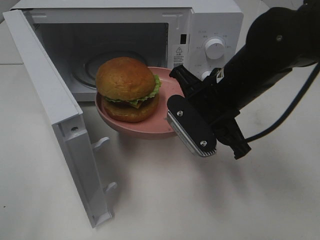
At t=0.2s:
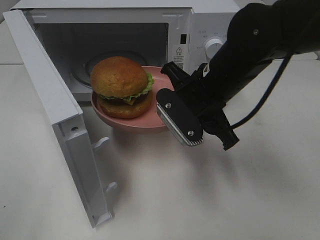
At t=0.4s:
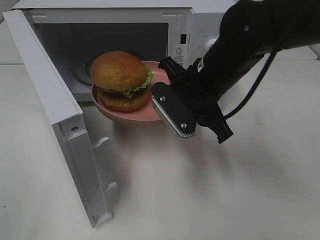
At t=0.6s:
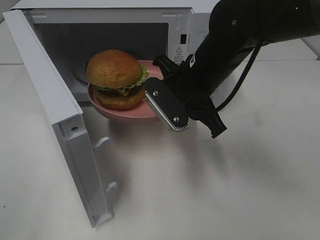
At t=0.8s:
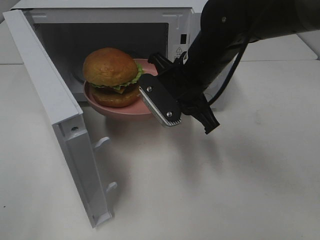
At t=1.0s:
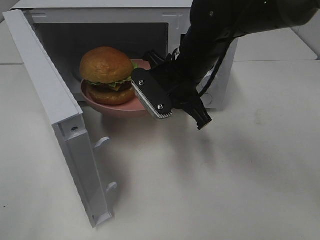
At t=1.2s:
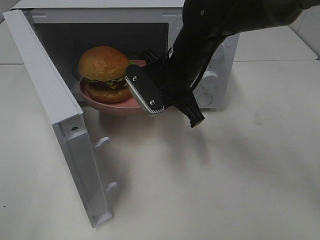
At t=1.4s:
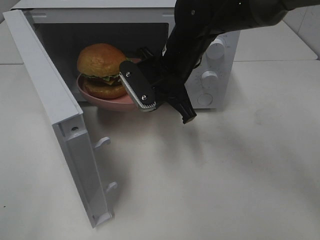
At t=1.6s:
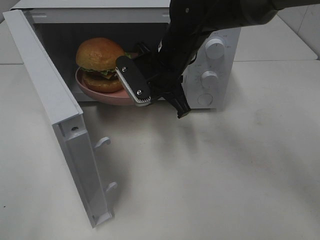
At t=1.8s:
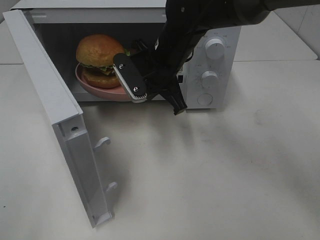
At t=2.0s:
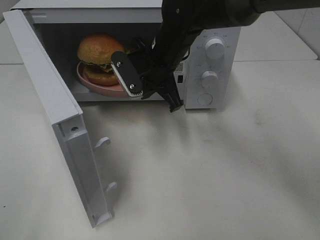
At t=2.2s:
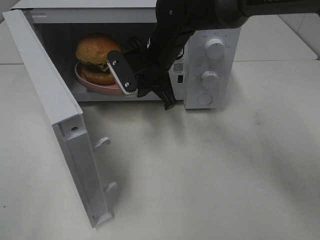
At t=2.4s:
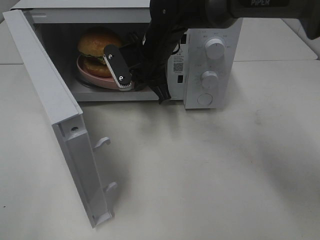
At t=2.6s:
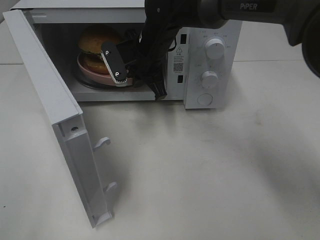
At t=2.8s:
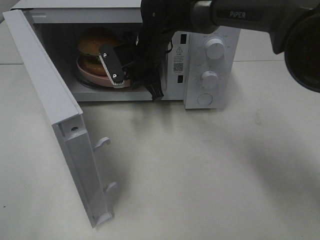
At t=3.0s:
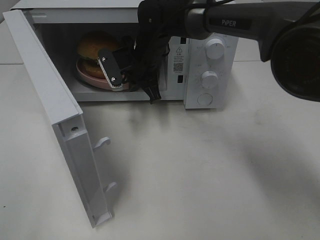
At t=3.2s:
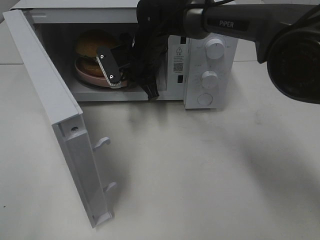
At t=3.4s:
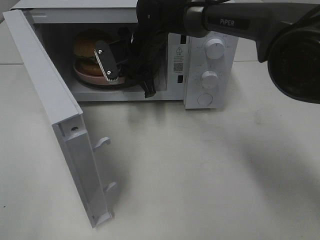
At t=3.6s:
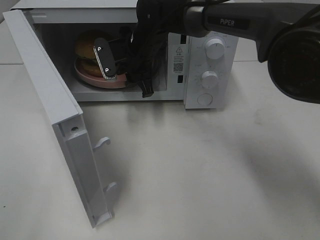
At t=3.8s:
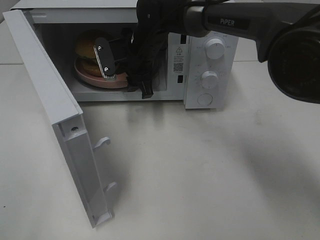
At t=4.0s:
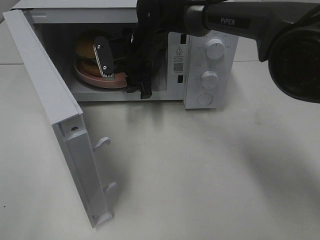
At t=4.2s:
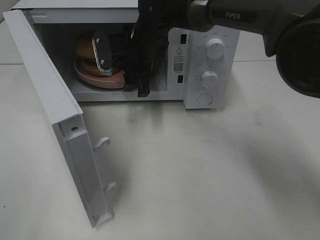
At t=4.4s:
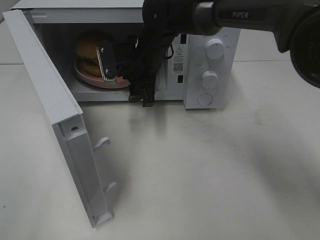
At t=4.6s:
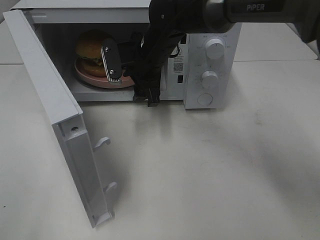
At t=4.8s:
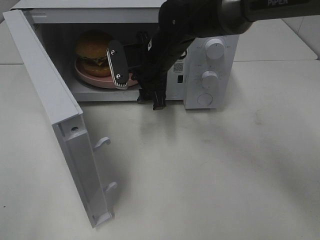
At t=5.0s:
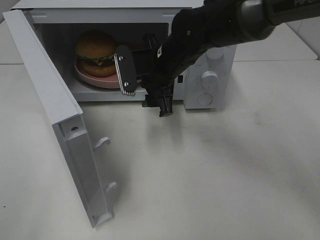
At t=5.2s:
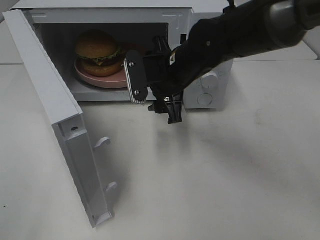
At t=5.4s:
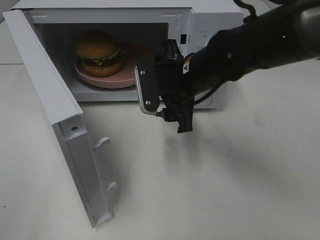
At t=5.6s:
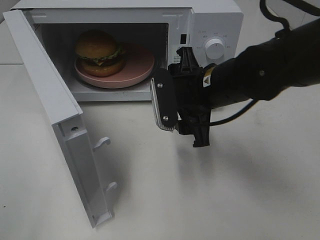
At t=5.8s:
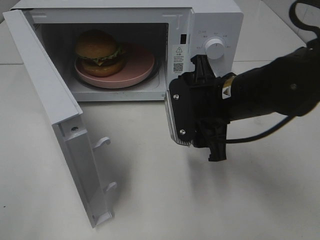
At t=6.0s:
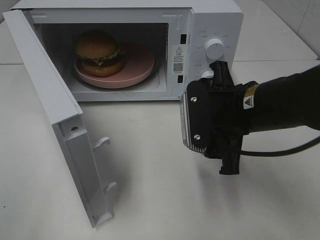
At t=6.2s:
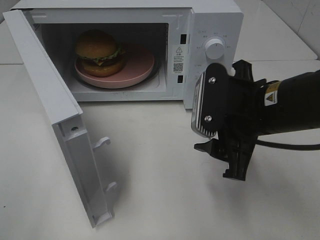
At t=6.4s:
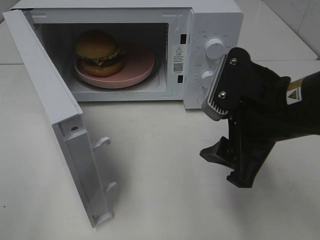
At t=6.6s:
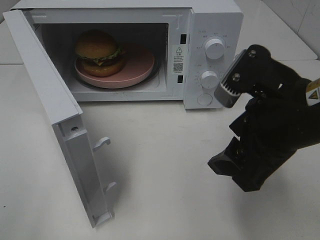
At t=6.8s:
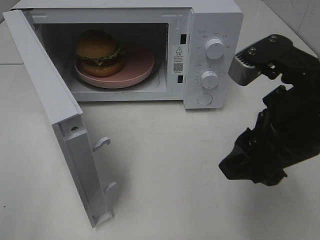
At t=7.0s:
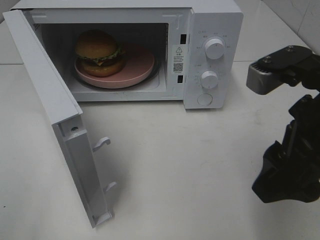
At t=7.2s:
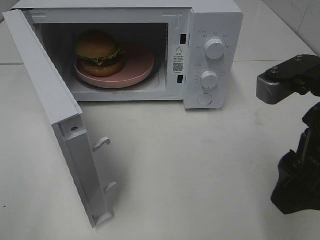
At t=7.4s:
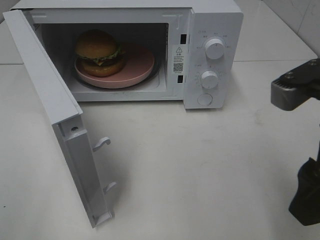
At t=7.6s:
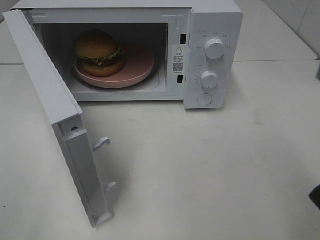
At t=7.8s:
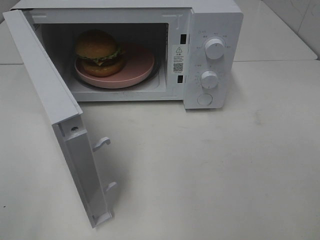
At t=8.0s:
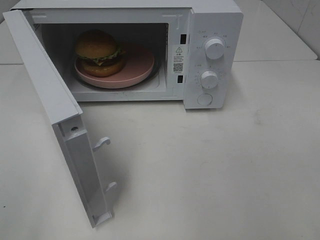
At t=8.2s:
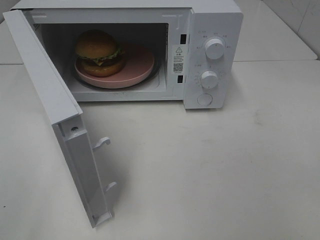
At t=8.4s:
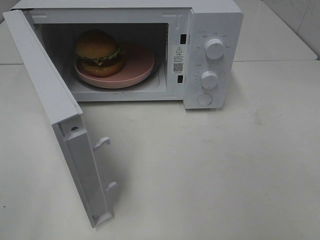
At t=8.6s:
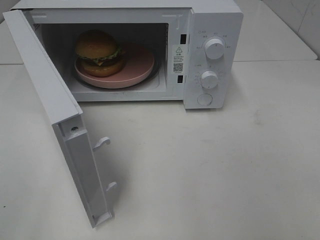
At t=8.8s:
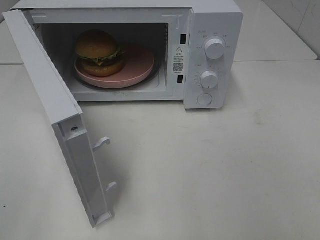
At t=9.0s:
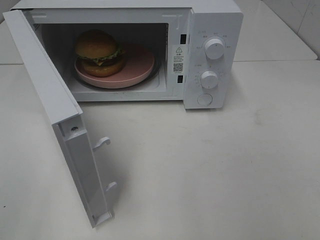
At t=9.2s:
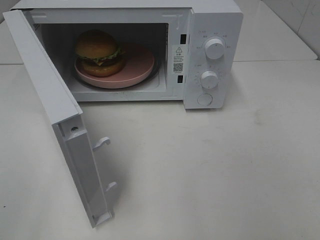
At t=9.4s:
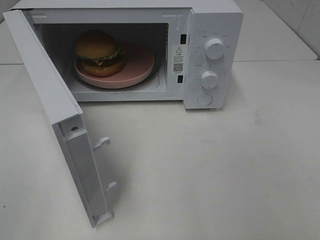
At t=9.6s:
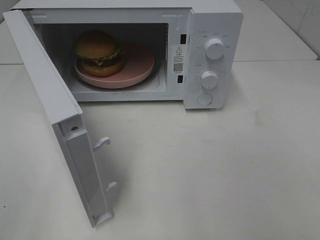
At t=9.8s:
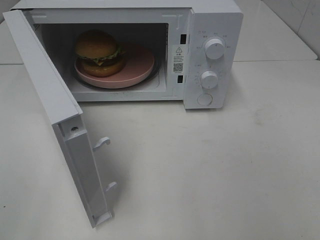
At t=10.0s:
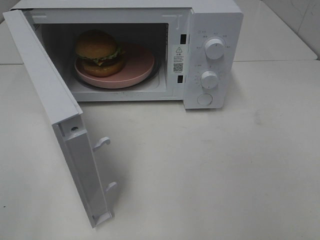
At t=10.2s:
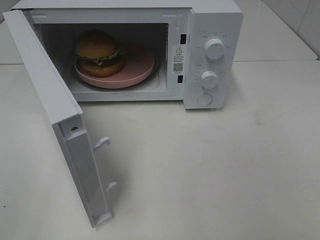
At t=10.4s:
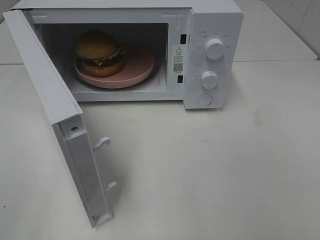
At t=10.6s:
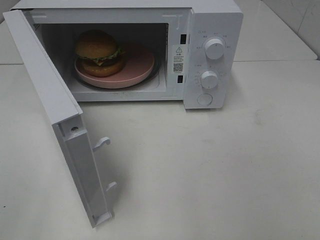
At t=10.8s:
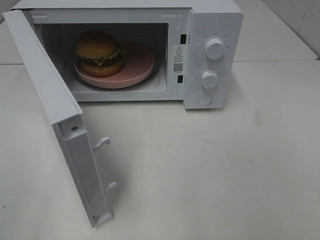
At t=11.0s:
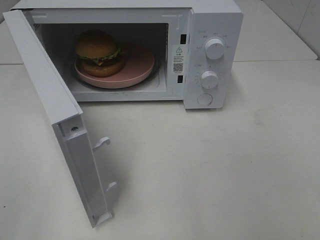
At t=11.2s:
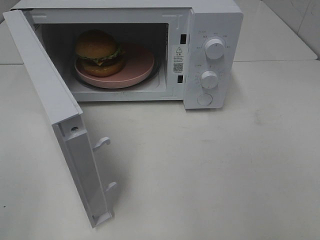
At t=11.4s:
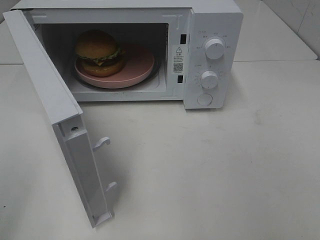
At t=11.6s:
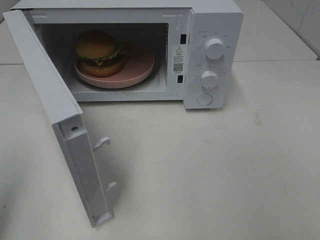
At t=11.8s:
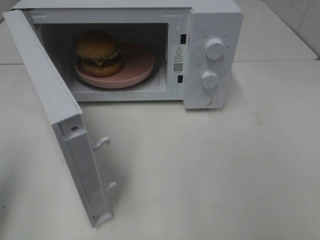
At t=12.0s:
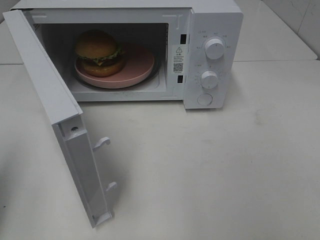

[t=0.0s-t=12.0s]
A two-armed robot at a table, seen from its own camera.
Task of the whole recording: Heat the burger.
Step, t=0.0s to t=3.6s: Right hand: place the plate in the microwave.
t=0.0s to t=1.6s: The right gripper is displaced forward and to the left by about 10 cm.
t=1.6s to t=3.0s: The right gripper heads forward, covering roughly 5 cm.
t=3.0s to t=4.4s: The right gripper opens its fingers.
t=4.4s to t=6.0s: The right gripper heads backward and to the right, covering approximately 25 cm.
t=6.0s to t=7.6s: The right gripper goes about 20 cm backward, upward and to the right.
t=7.6s to t=9.0s: The right gripper travels backward and to the right by about 15 cm.
t=9.0s to t=10.4s: Both grippers stay about where they are.
t=10.4s to t=12.0s: The left gripper goes some 15 cm forward, and closes its fingers.

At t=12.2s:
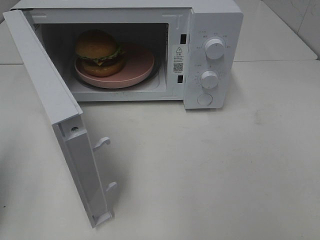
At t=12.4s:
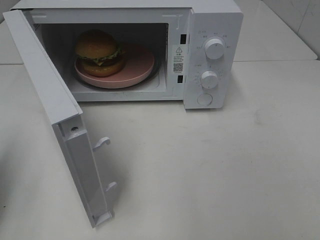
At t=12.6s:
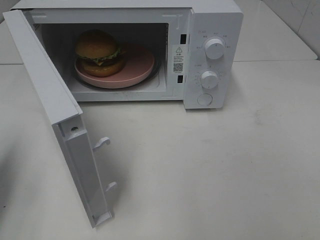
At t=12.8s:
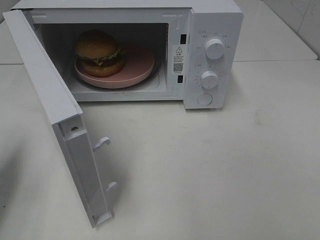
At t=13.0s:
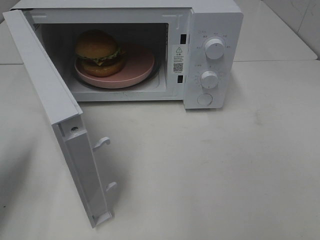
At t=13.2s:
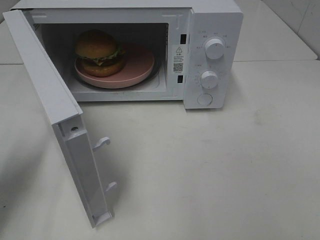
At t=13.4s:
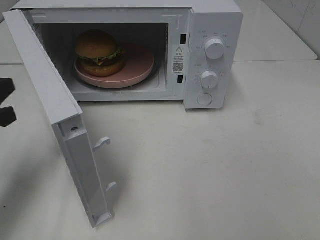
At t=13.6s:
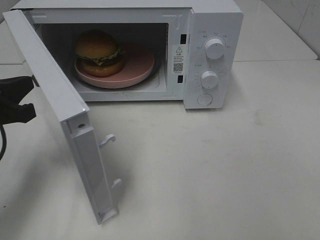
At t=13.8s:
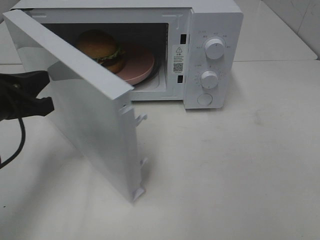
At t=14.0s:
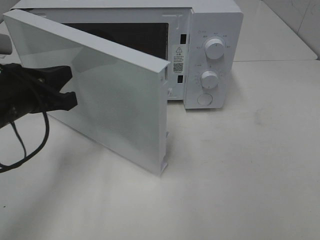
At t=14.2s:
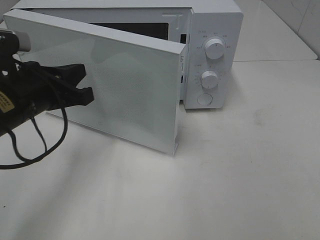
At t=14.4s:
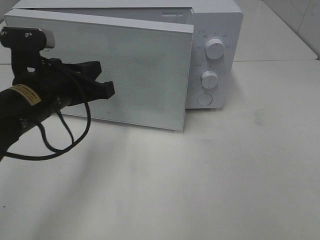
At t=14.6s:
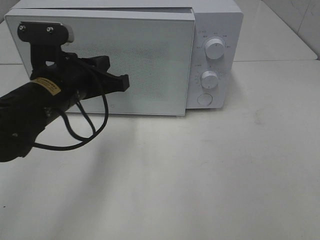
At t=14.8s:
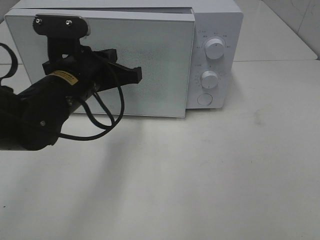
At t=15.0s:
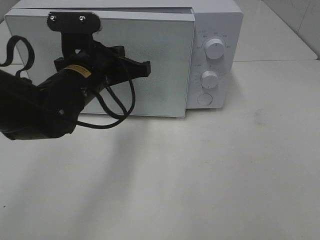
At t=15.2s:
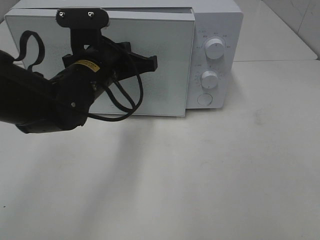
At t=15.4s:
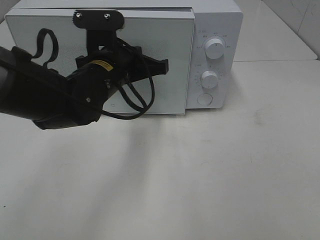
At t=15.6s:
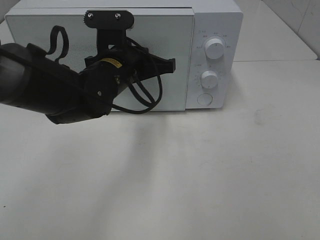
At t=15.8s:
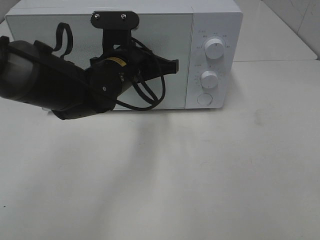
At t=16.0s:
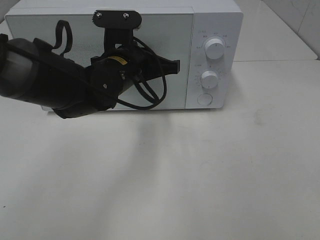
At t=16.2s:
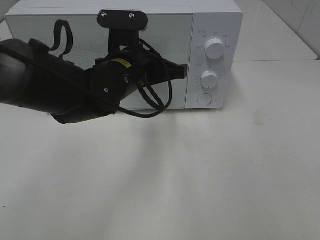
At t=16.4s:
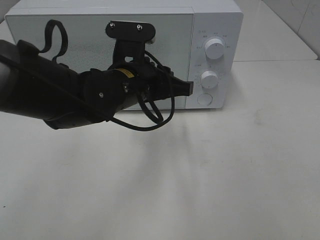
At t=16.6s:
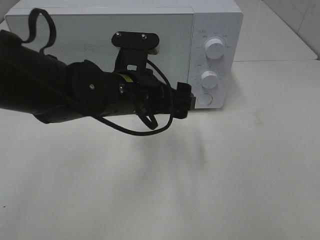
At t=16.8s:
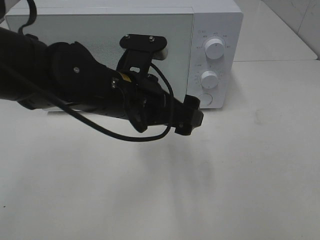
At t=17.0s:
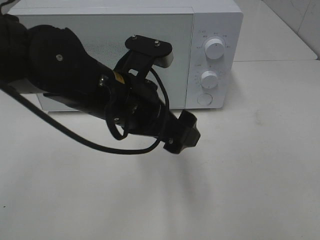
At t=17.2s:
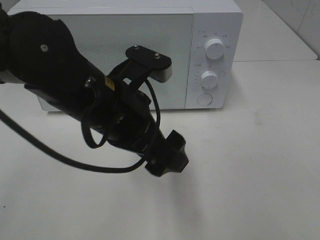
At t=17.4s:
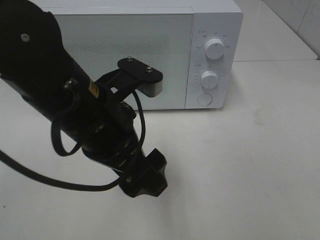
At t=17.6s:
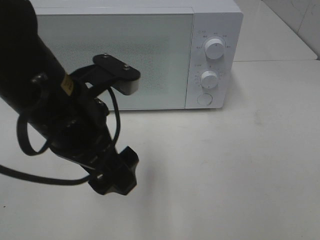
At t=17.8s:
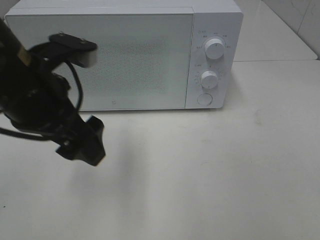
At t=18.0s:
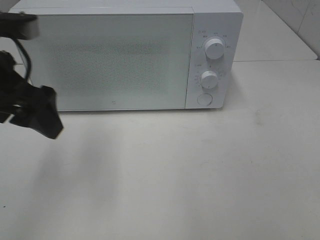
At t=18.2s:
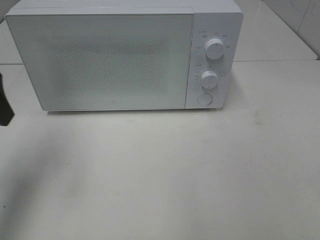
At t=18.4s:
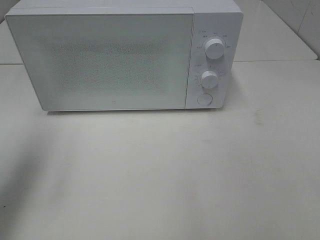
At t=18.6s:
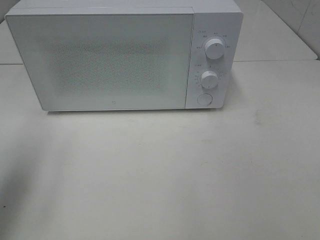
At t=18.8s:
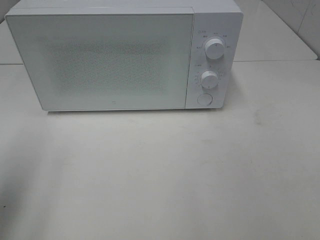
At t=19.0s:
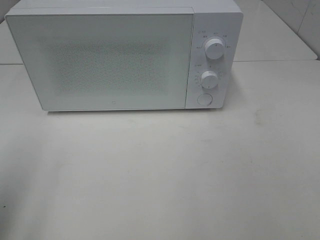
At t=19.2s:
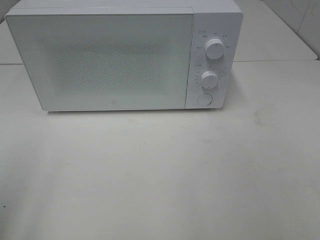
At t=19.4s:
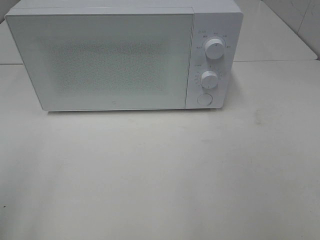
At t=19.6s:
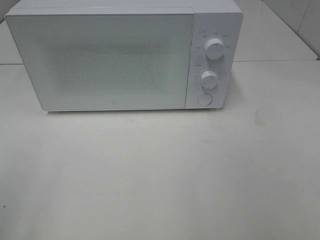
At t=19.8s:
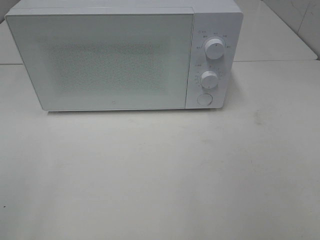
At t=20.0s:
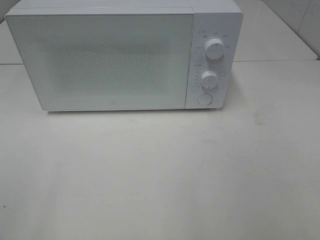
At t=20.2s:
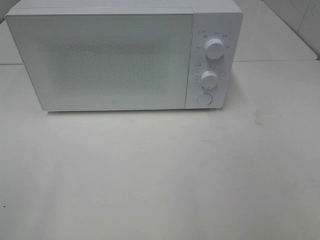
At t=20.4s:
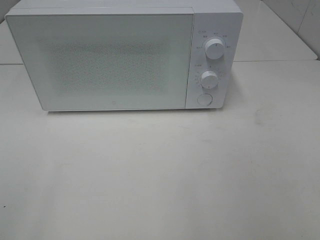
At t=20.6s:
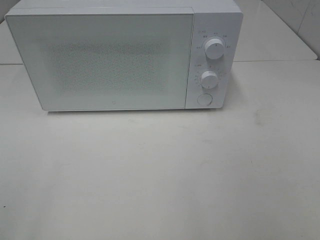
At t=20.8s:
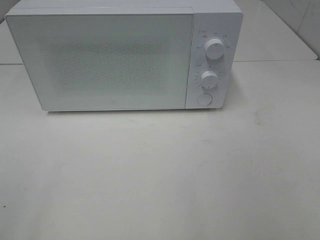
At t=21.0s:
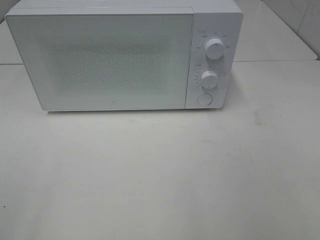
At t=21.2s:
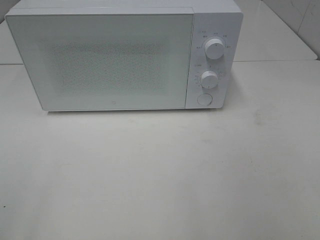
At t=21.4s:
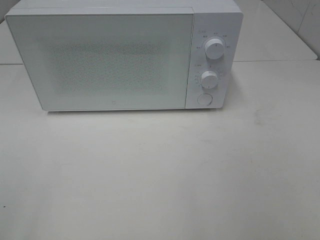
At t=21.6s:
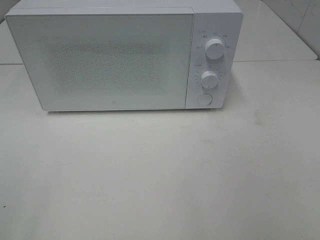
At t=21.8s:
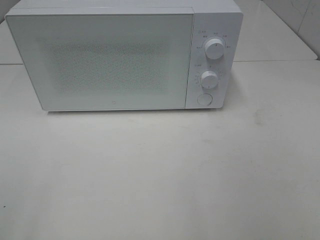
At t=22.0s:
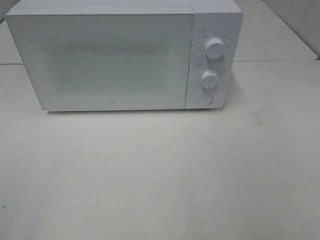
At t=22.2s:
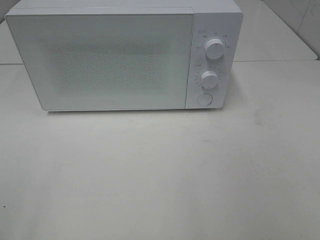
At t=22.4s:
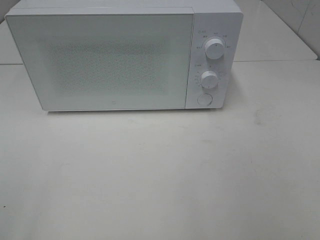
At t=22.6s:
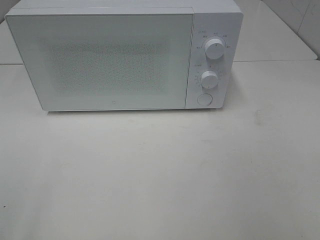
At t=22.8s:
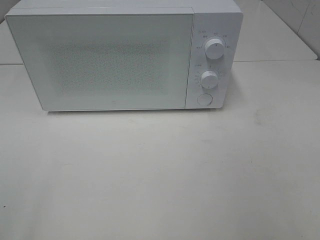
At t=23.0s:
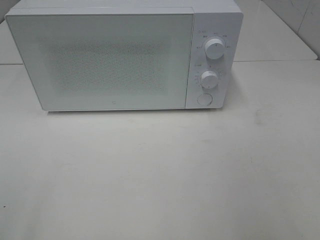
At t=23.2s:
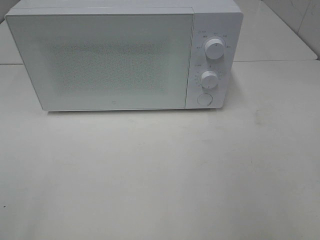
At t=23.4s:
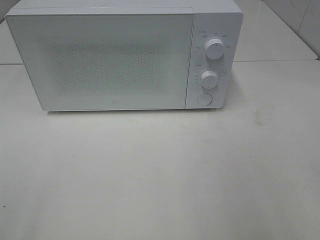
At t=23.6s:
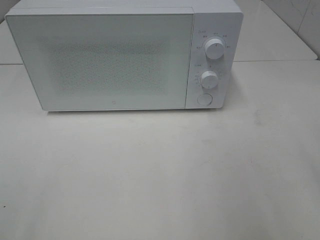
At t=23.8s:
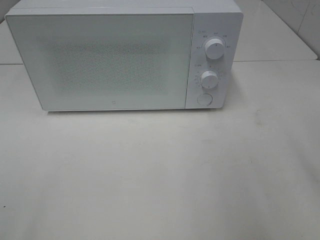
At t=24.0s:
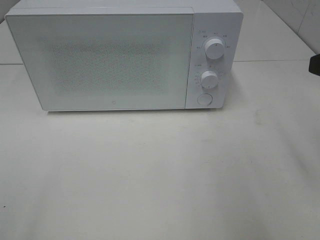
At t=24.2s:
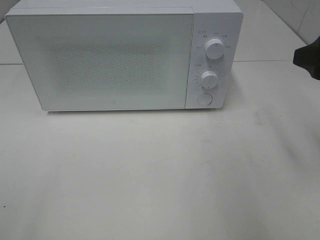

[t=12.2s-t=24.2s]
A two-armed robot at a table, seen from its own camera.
Task of the whole recording: Heat the burger.
Step, t=12.2s to t=16.4s: Left hand: close the microwave door.
t=12.2s to t=13.8s: The left gripper heads to the right, forward and downward, covering approximately 15 cm.
t=13.8s to t=15.2s: The left gripper is displaced to the right and forward by some 15 cm.
t=15.2s to t=16.6s: The left gripper moves approximately 5 cm, and opens up.
t=16.6s to t=18.2s: The left gripper heads to the left and upward, covering about 25 cm.
t=18.2s to t=19.8s: The left gripper moves backward, about 20 cm.
t=22.6s to t=24.2s: The right gripper shifts approximately 20 cm forward.
